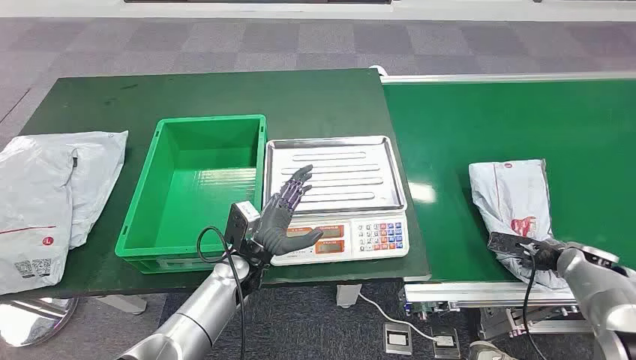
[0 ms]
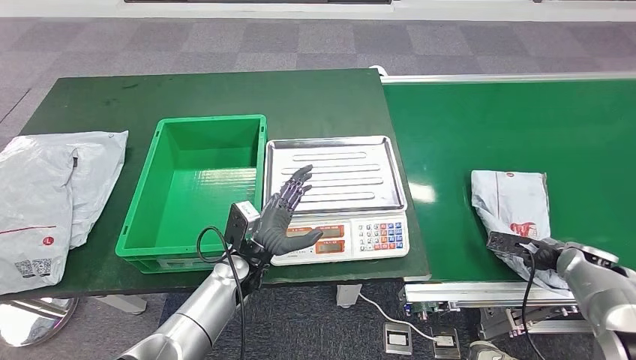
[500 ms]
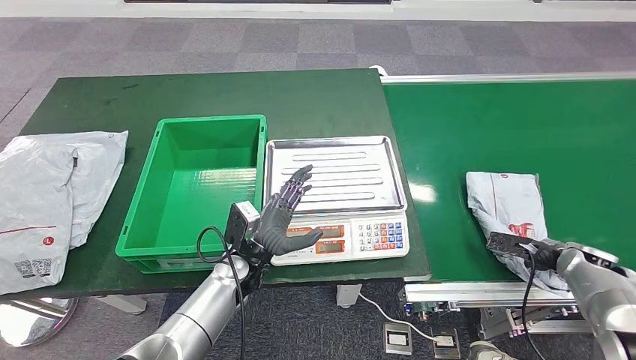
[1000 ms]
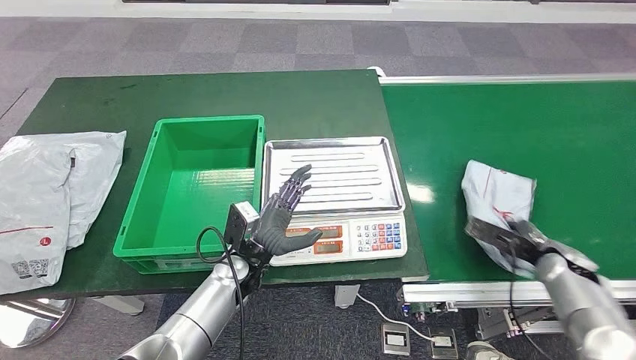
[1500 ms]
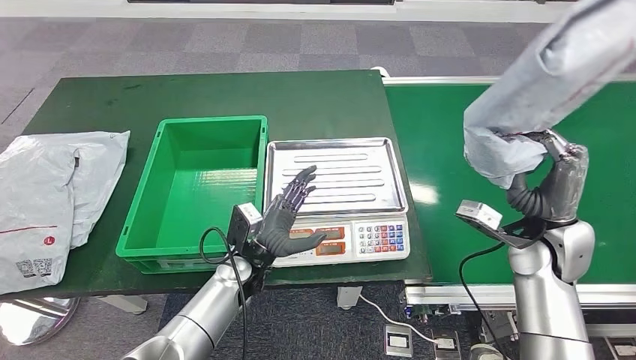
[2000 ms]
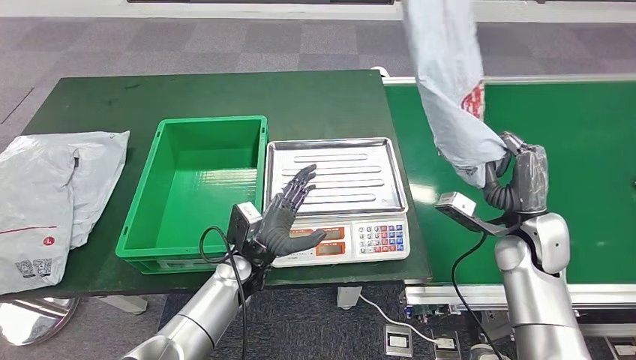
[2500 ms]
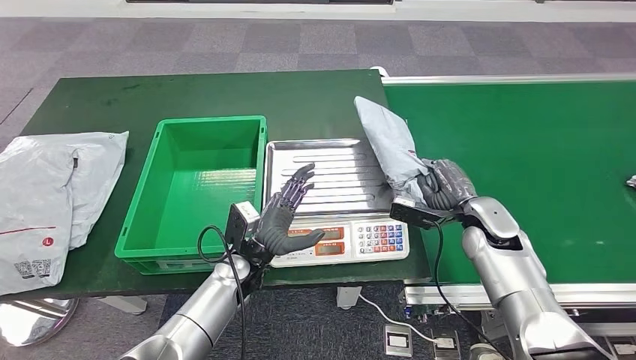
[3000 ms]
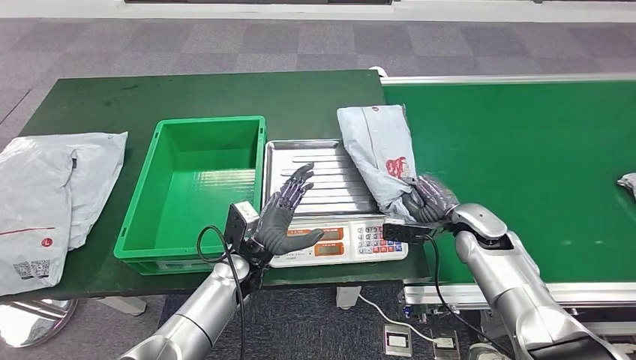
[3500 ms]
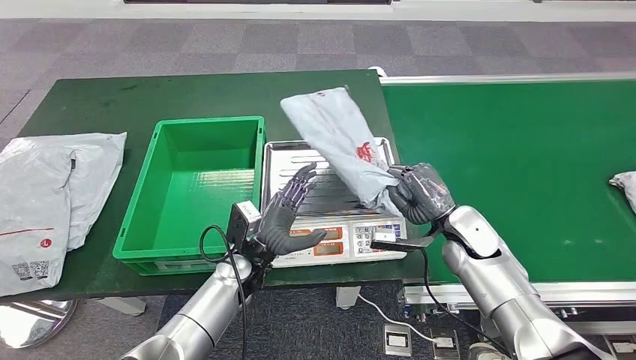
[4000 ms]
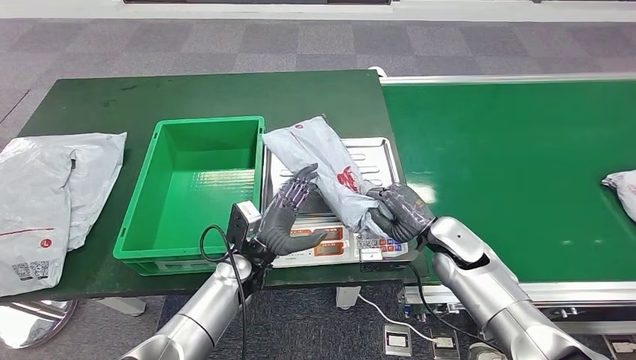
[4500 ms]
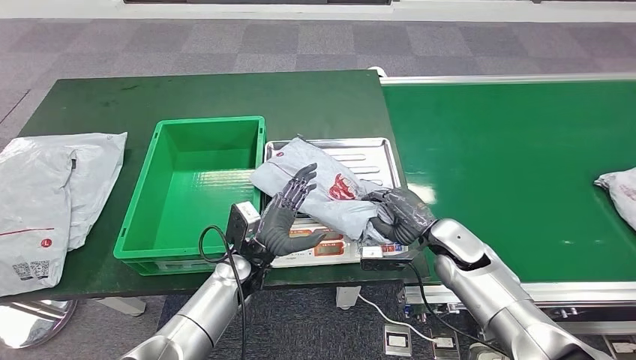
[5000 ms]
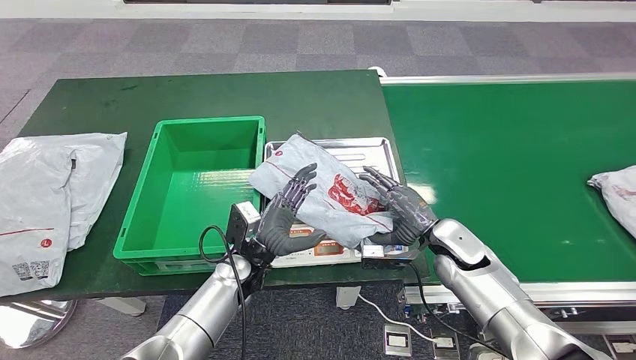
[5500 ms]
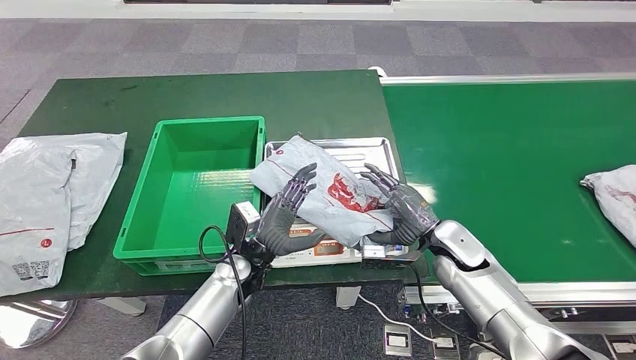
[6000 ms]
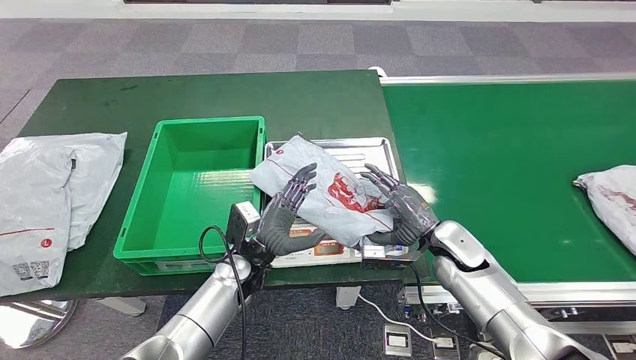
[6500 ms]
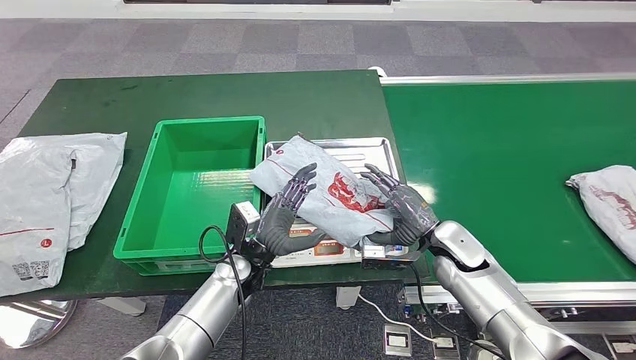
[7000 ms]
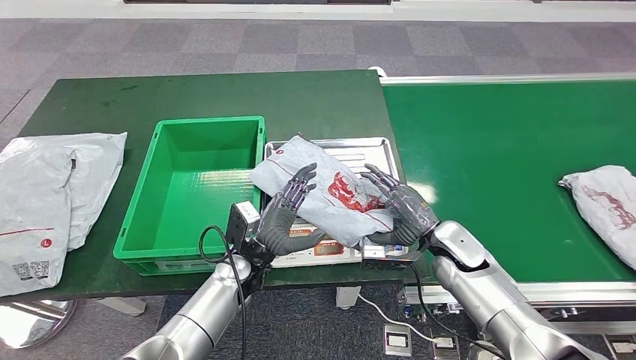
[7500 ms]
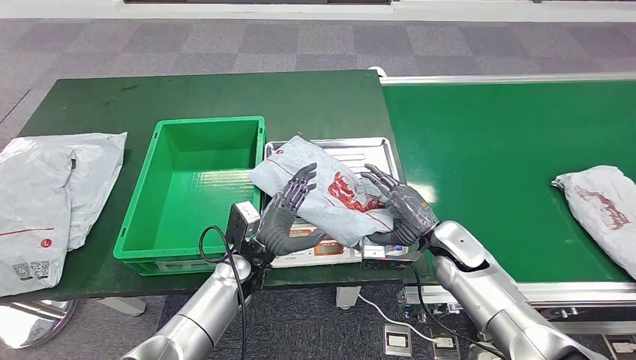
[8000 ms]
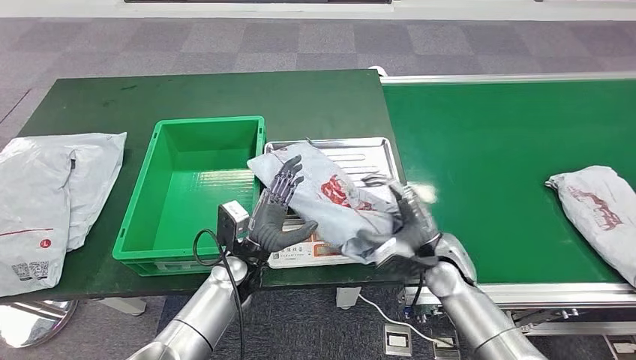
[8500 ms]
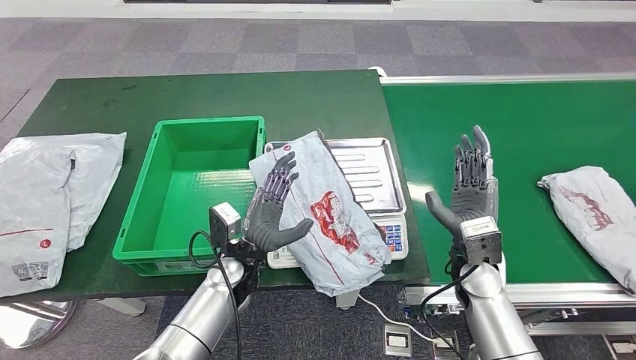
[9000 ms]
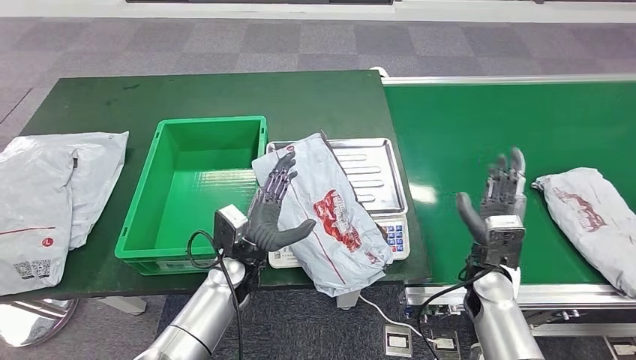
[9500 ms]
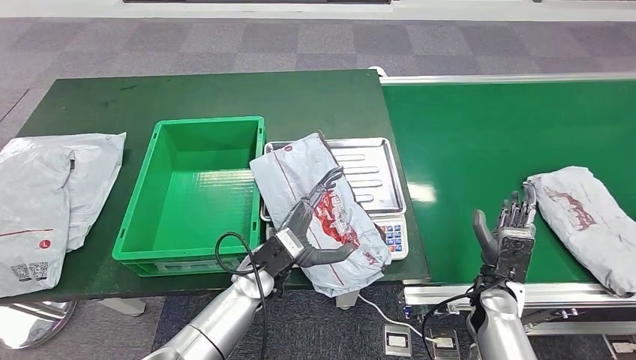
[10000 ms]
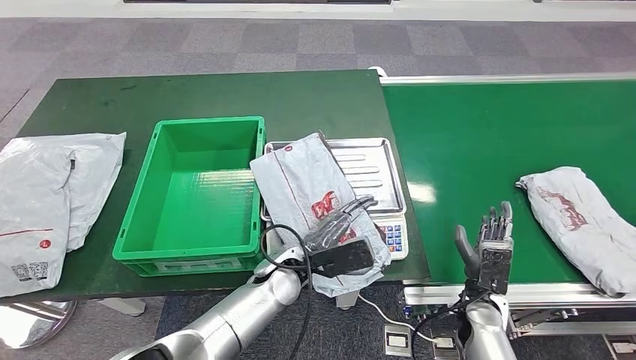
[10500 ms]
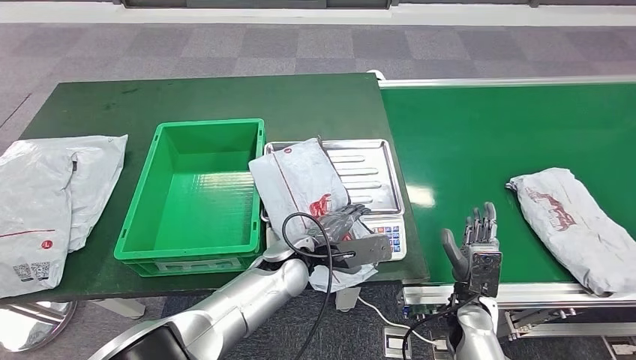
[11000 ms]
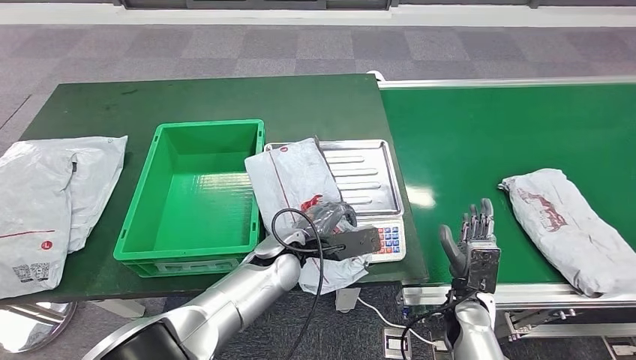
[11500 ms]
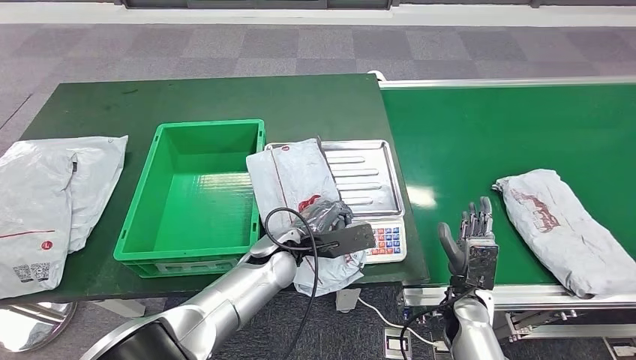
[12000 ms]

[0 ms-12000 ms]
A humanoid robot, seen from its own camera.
Step, 0 ms to 2000 ms: Take the parcel off the conveyor belt.
Step, 2500 ms to 5000 ms: Place the parcel onto the inbound machine.
6000 ms to 8000 ms: Both hands stay put.

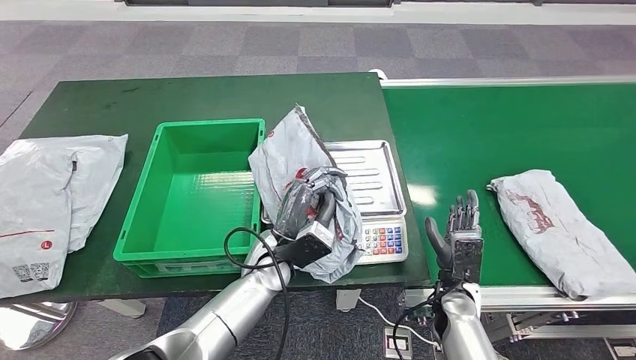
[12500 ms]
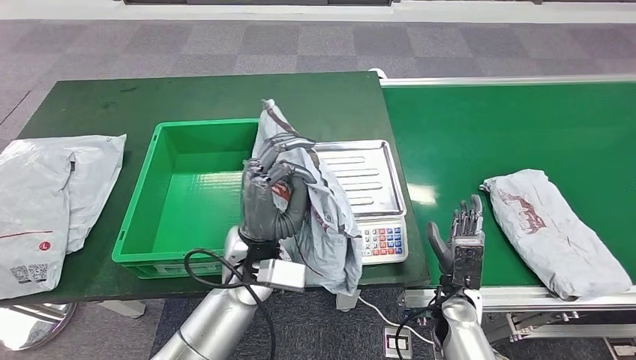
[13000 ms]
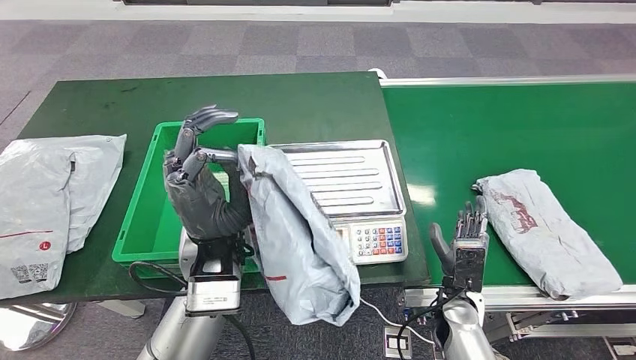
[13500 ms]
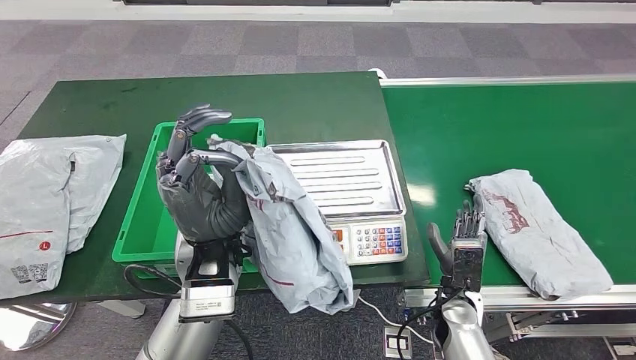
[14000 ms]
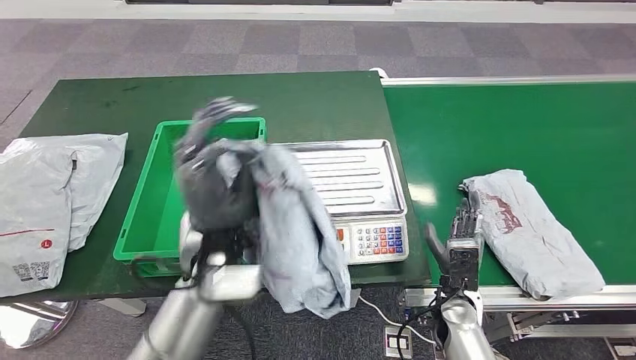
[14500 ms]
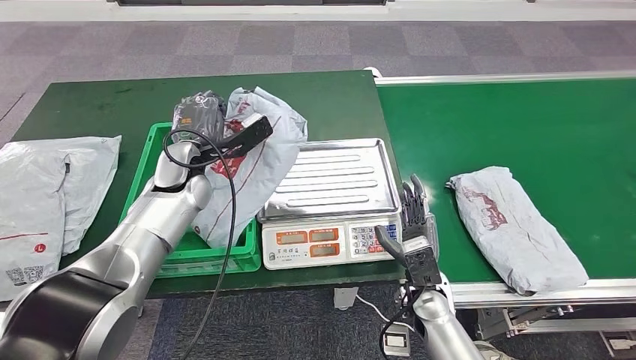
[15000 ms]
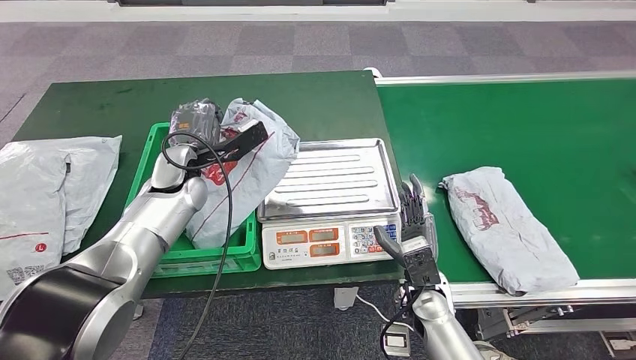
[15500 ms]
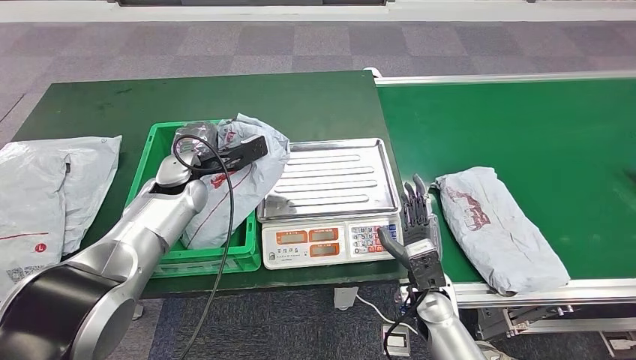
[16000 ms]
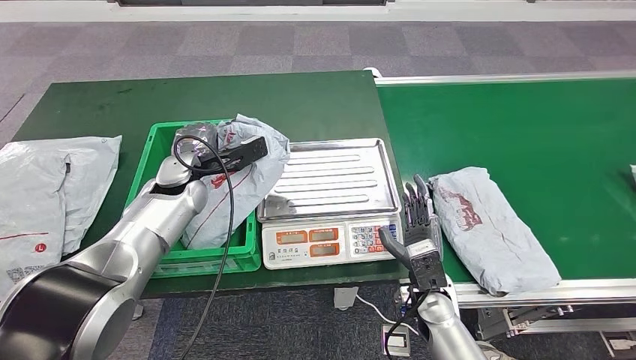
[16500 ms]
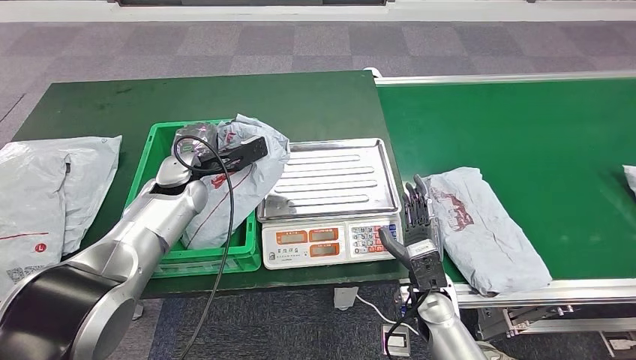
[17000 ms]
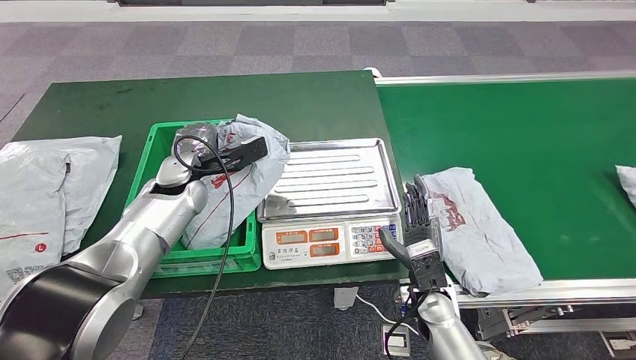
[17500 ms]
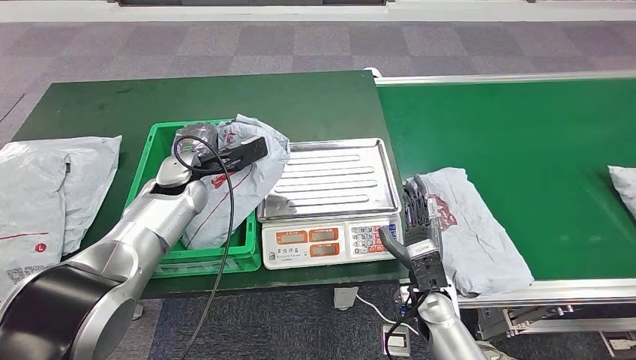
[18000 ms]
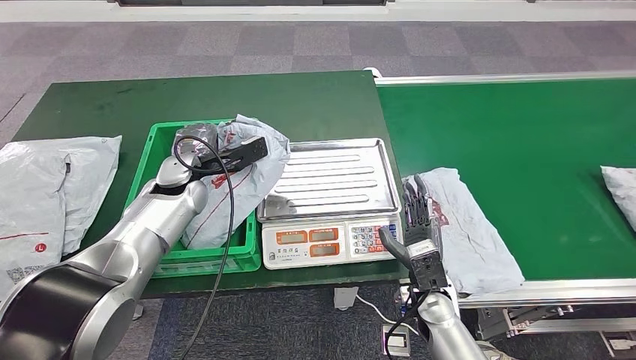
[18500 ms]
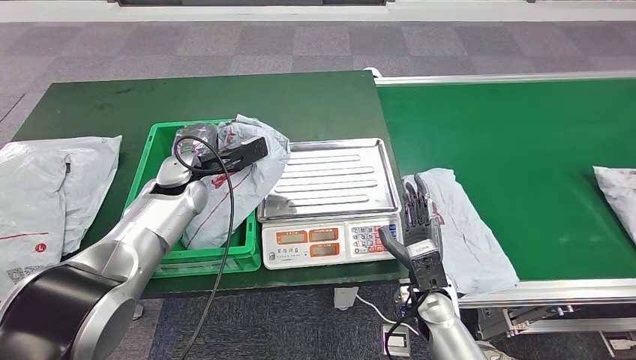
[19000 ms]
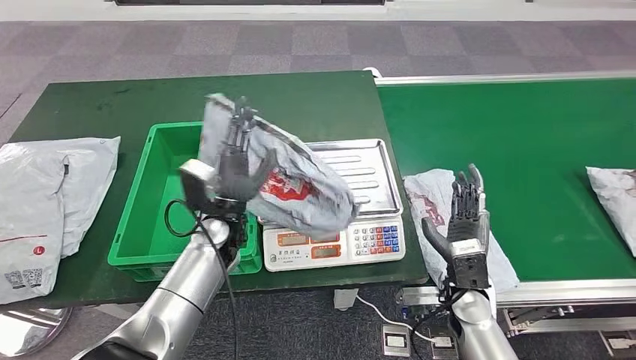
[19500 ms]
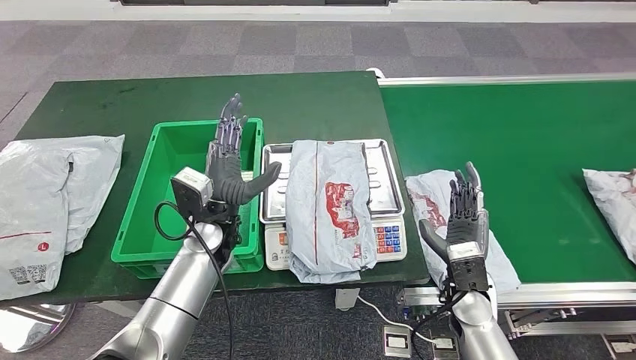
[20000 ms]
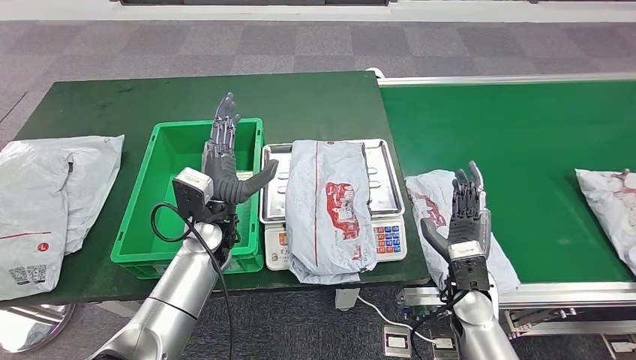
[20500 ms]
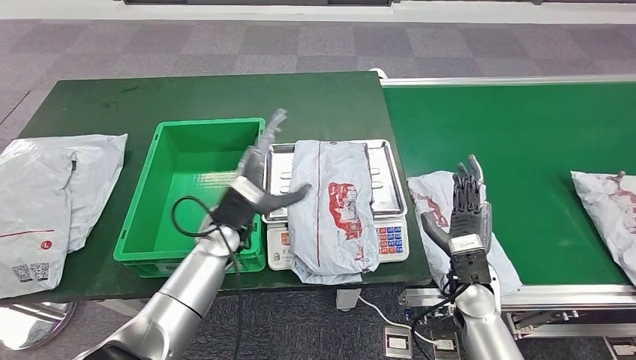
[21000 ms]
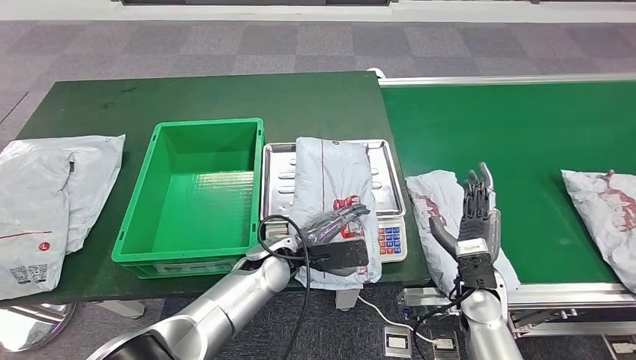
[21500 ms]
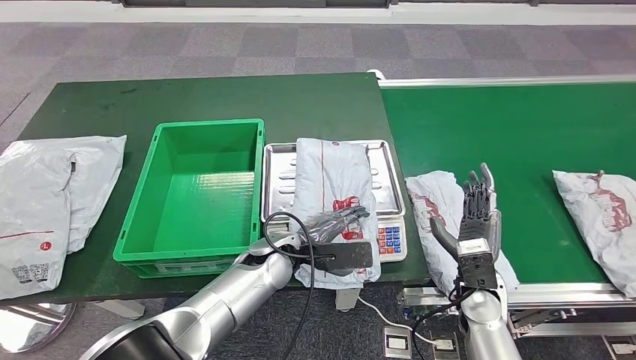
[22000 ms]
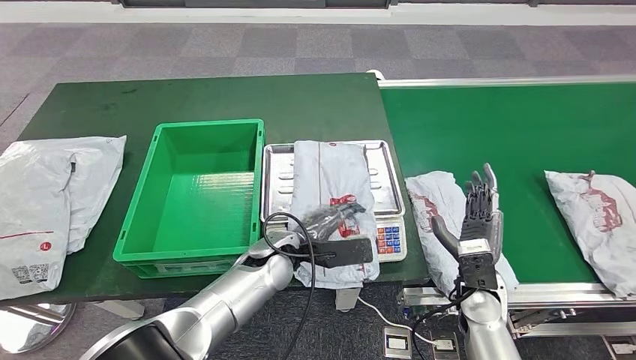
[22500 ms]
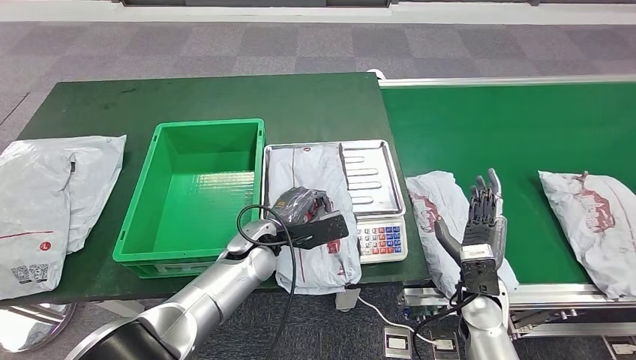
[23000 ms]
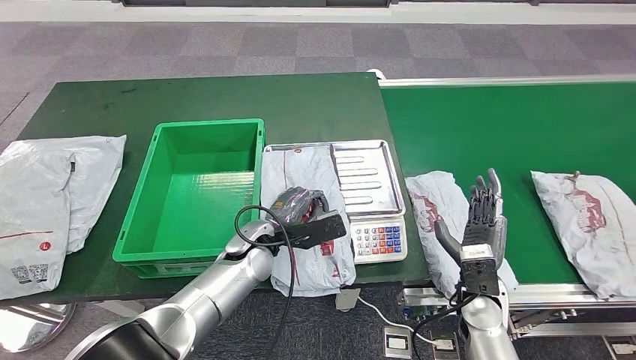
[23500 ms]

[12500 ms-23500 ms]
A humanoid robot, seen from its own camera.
16000 ms to 18000 ms: The two hands keep their place.
20000 ms to 21500 ms: The left hand shifts approximately 10 cm to the right and downward.
